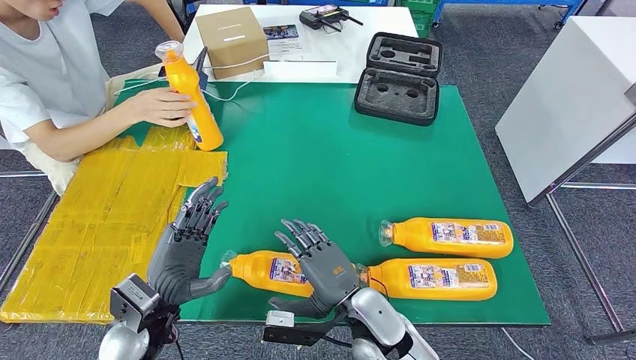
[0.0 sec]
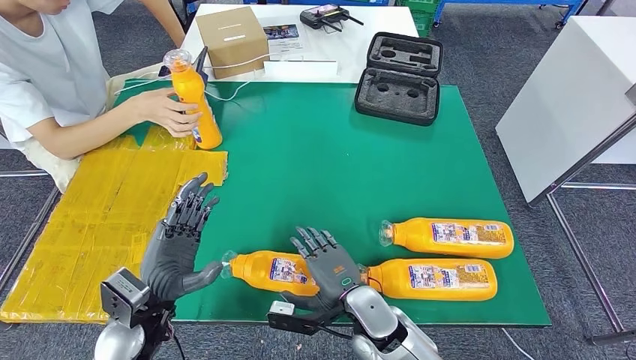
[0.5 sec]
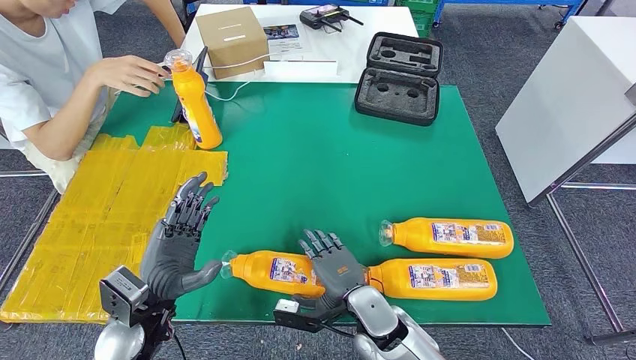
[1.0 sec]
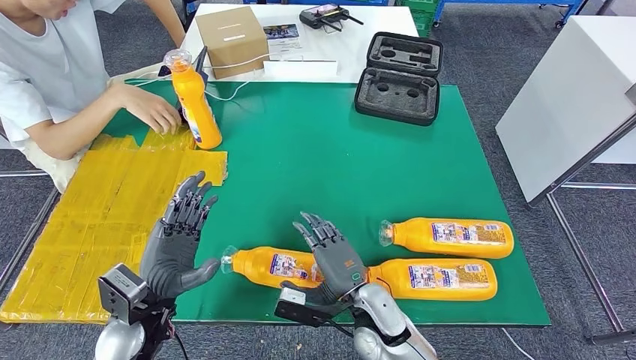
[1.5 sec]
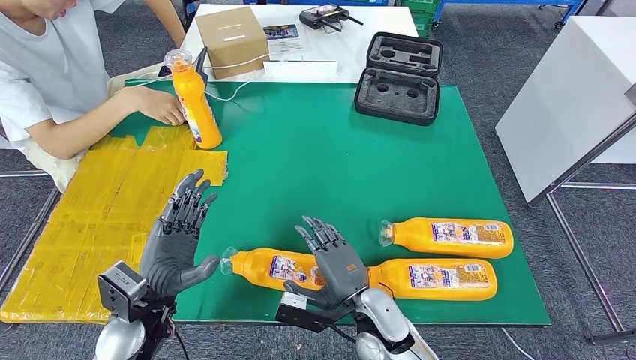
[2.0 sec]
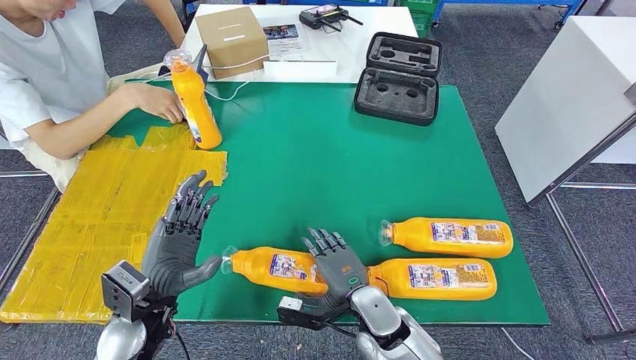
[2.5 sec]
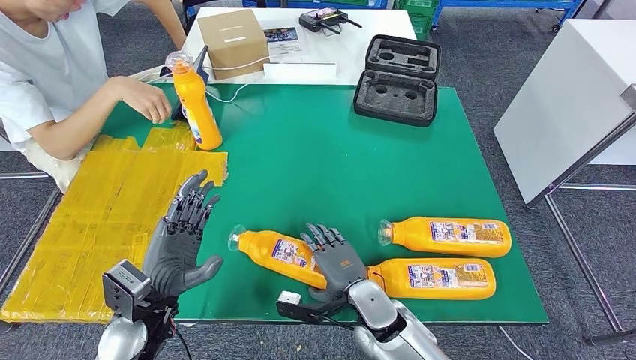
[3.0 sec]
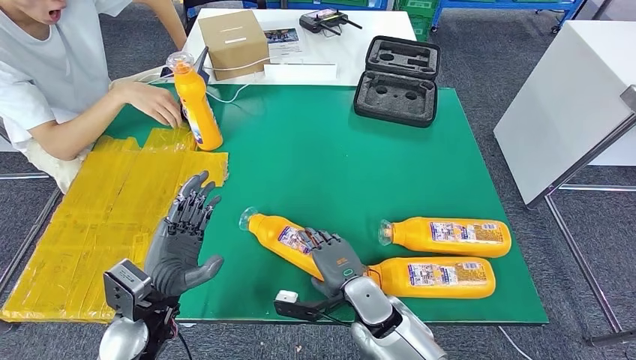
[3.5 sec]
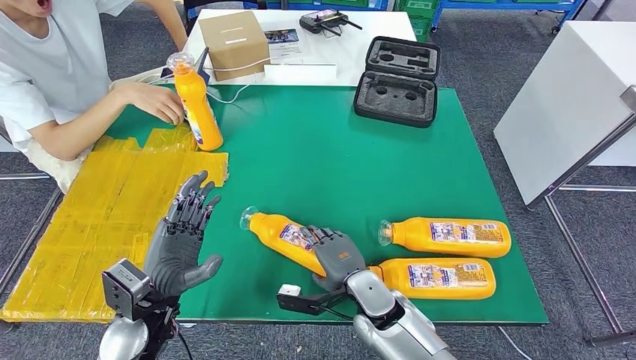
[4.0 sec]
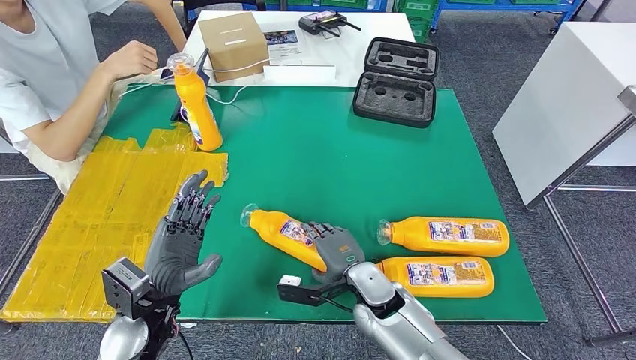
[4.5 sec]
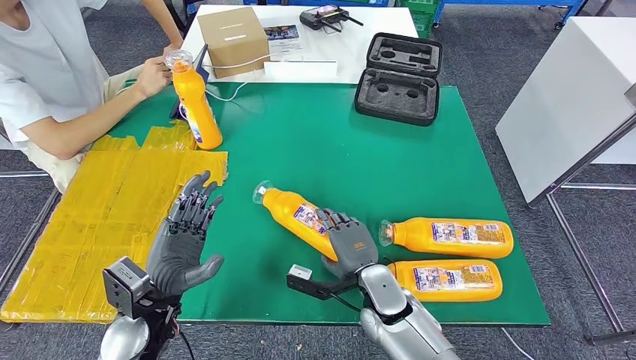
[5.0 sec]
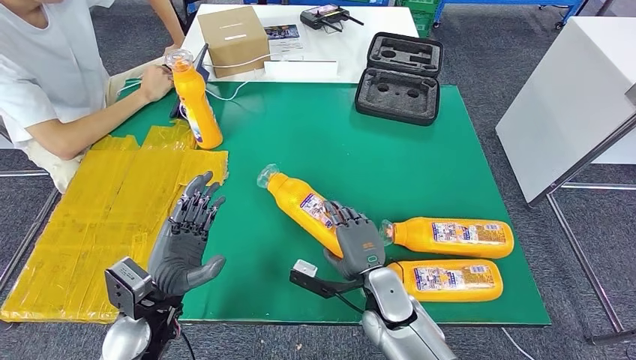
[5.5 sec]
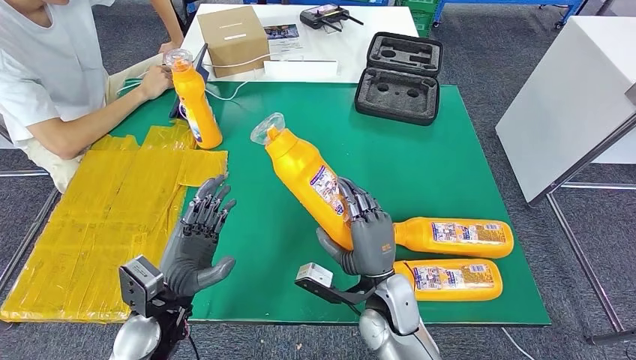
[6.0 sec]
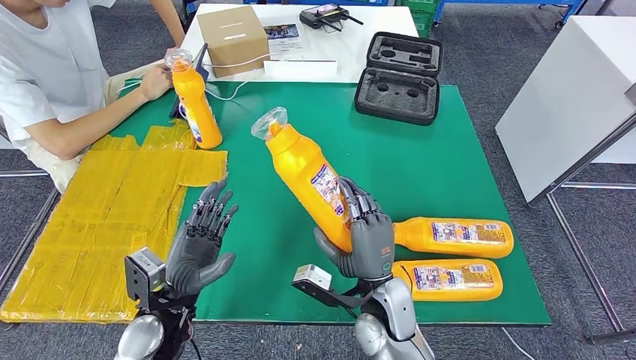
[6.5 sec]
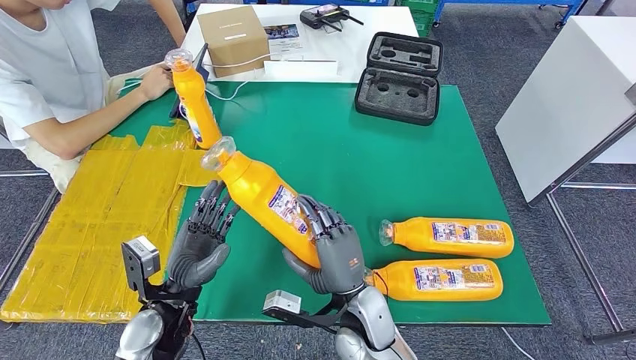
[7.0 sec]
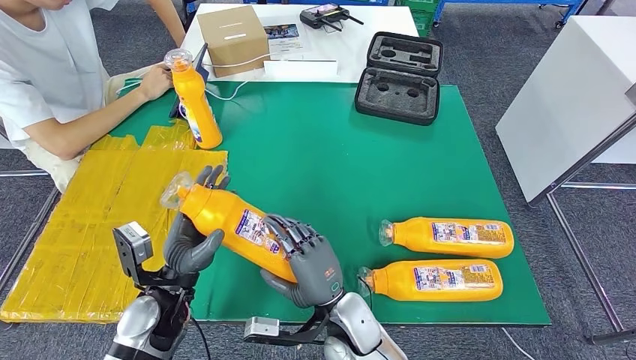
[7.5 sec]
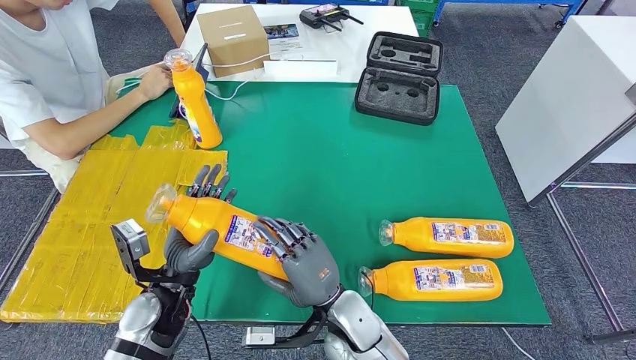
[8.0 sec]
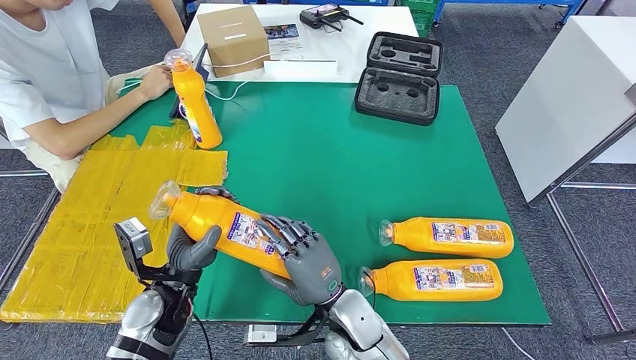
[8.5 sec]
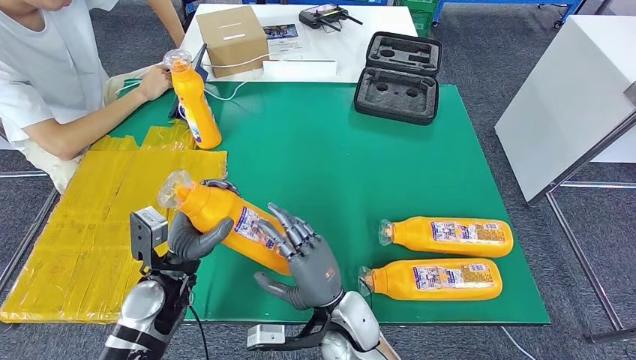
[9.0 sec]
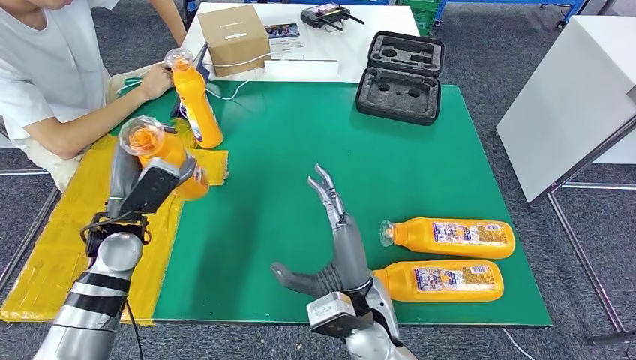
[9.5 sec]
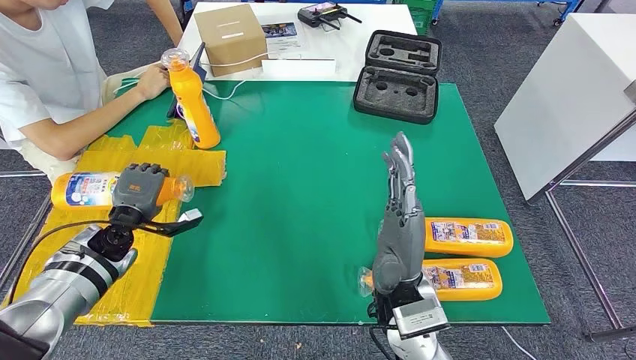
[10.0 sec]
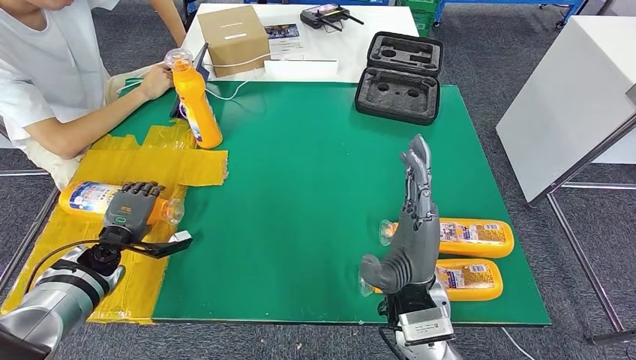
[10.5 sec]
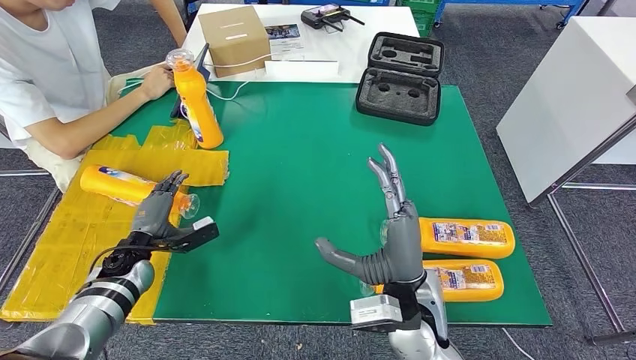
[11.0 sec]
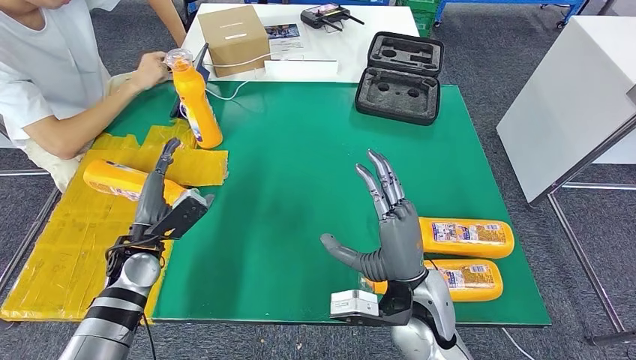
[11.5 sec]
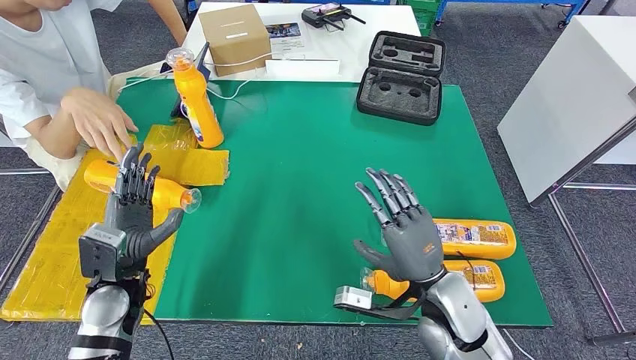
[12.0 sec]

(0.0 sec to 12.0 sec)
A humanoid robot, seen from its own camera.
Step, 0.0 sec - 5.0 sec: Pick up the bottle from the table.
6.0 sec - 8.0 sec: The right hand shifts approximately 5 cm to the left.

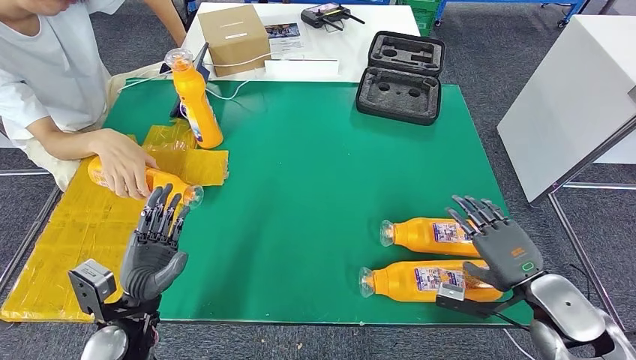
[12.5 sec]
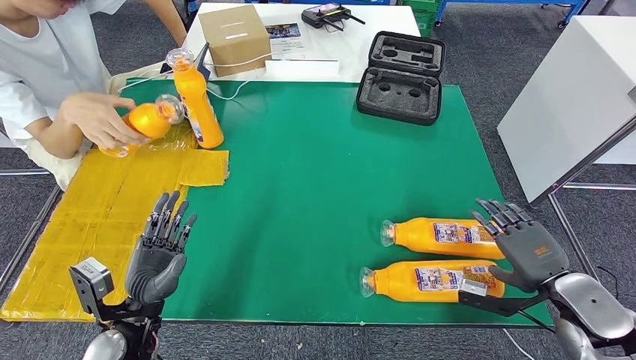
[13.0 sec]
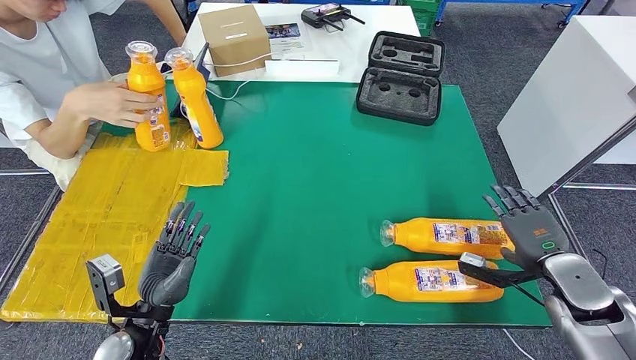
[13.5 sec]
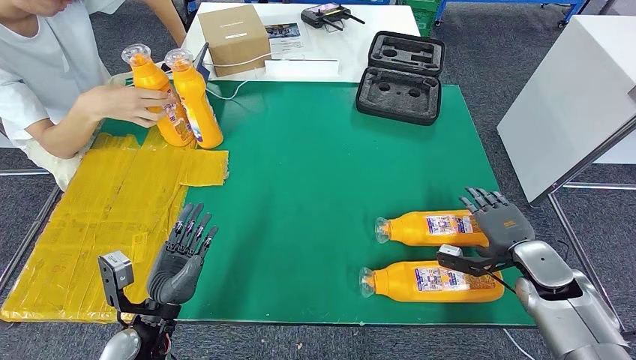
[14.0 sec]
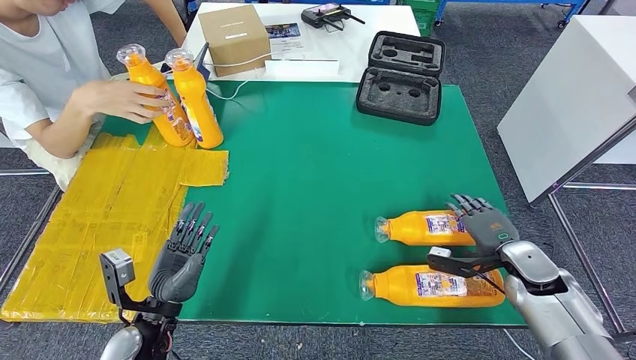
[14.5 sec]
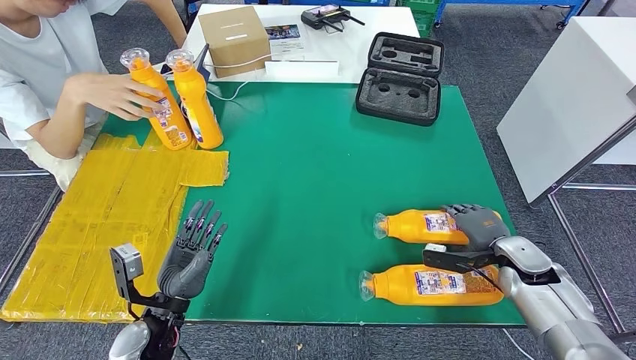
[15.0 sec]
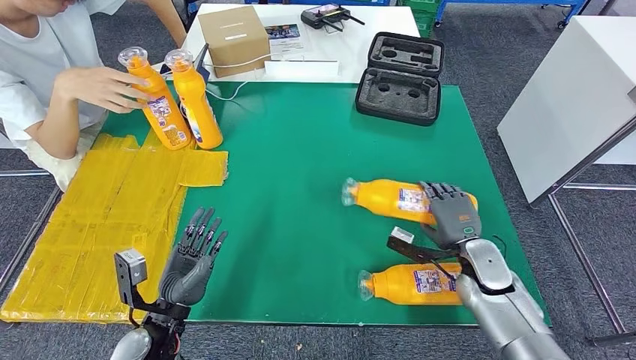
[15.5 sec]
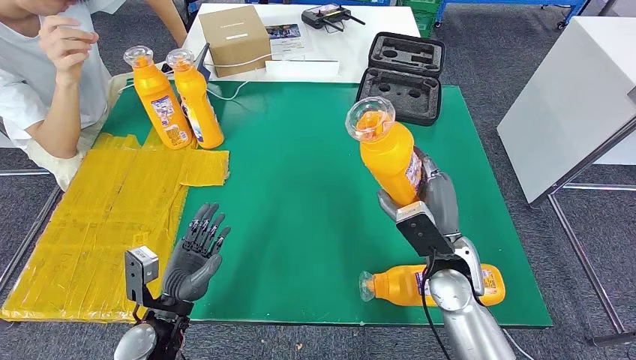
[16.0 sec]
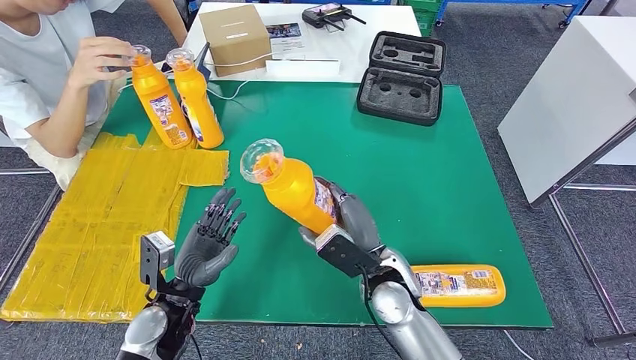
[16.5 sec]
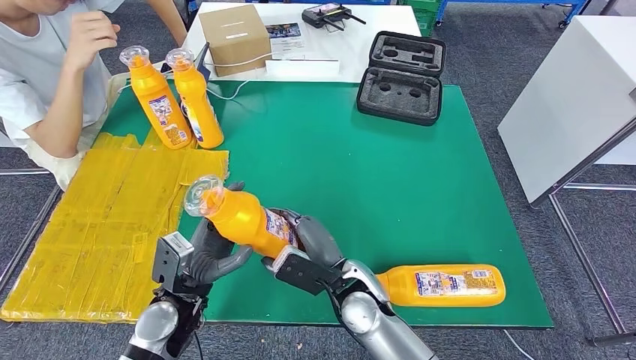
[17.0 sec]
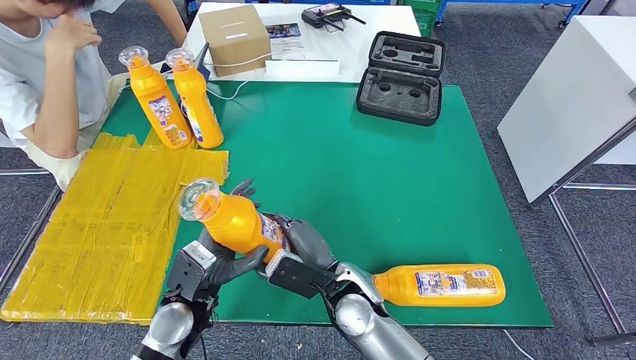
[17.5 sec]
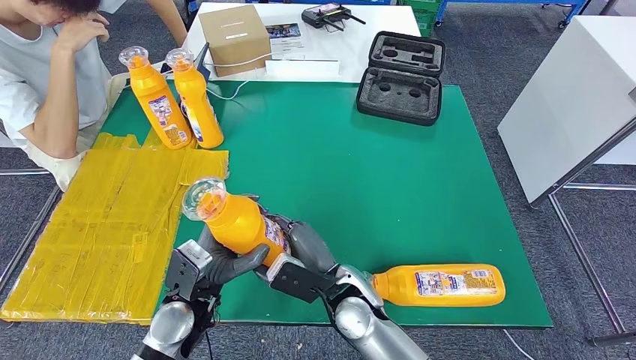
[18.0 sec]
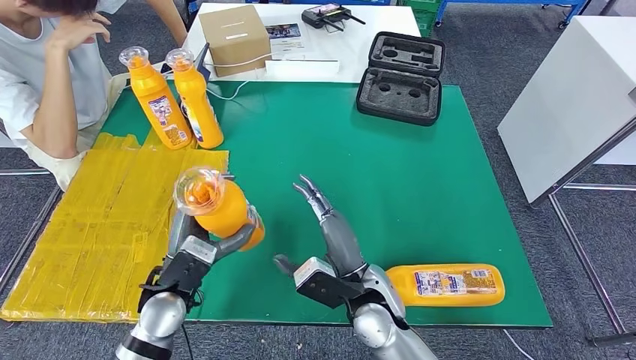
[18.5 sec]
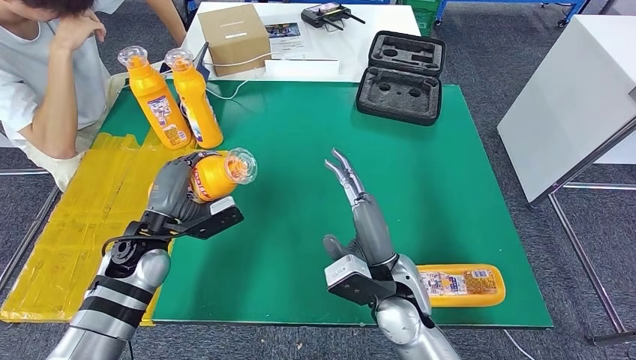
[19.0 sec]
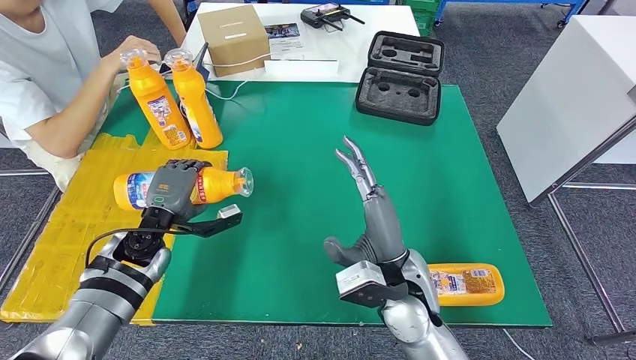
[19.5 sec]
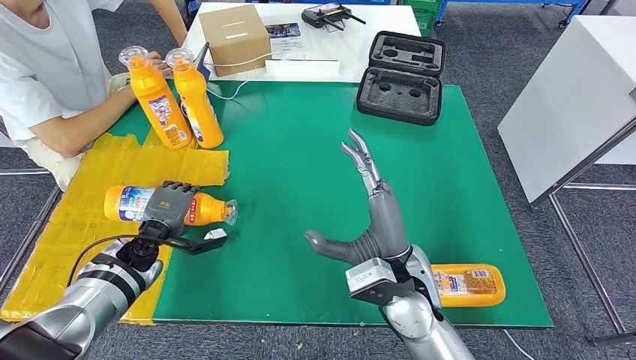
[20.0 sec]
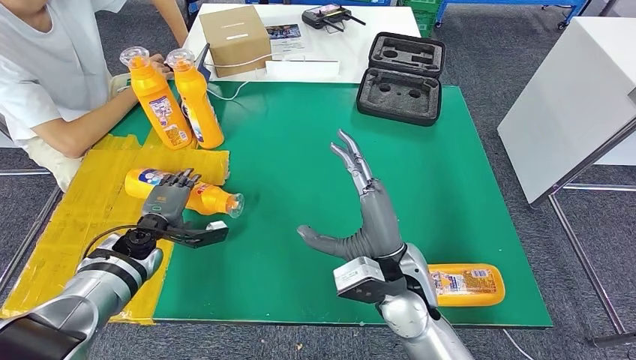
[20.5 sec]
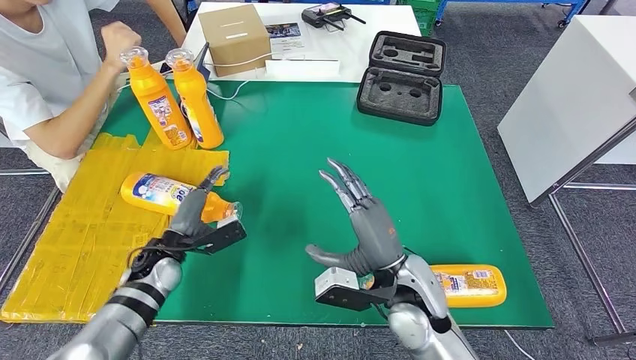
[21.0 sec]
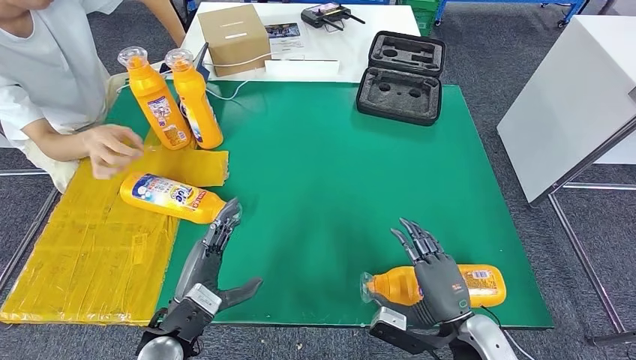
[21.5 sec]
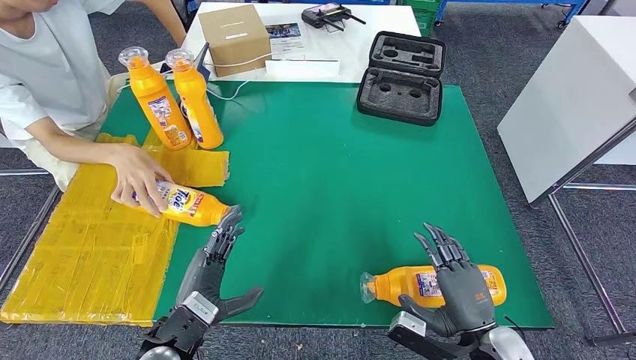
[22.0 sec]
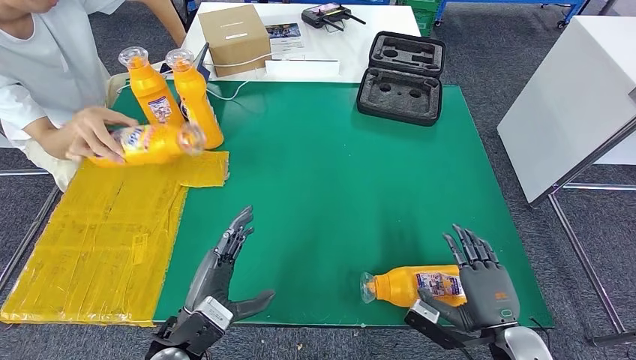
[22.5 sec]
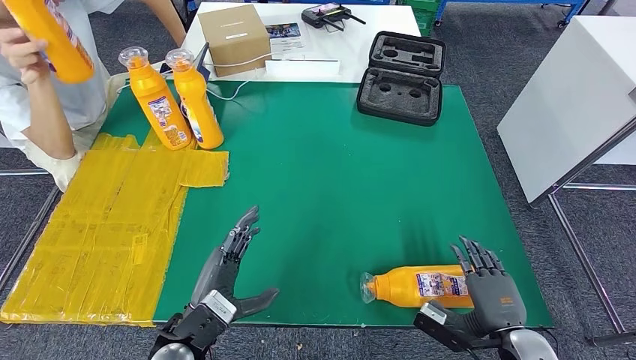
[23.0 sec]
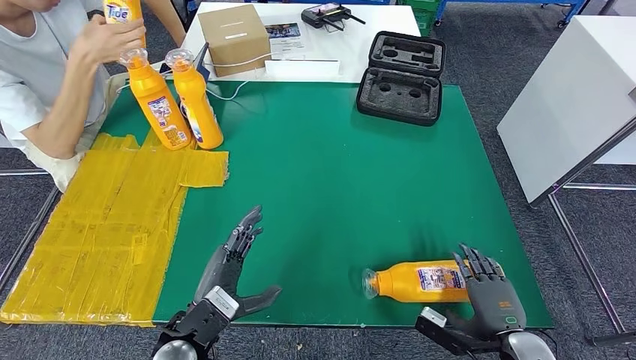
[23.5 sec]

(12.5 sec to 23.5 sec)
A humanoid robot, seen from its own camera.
Step, 13.0 sec - 16.5 sec: Pick up the bottle from the table.
Step, 17.5 sec - 22.5 sec: Flip the bottle to face forward.
12.5 sec - 14.5 sec: The right hand is displaced forward and downward by approximately 10 cm.
14.5 sec - 16.0 sec: The right hand goes roughly 20 cm to the left.
16.0 sec - 18.0 sec: The left hand is displaced to the right by roughly 5 cm. Meanwhile the right hand shifts about 15 cm to the left.
21.5 sec - 23.5 sec: The right hand goes roughly 10 cm to the right.
